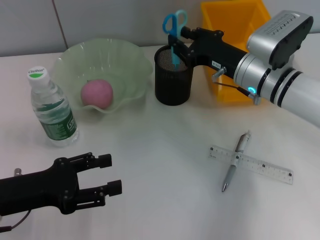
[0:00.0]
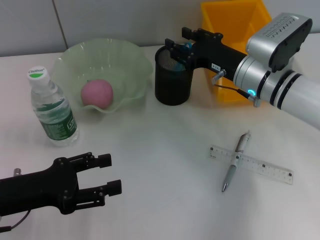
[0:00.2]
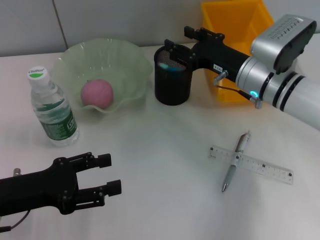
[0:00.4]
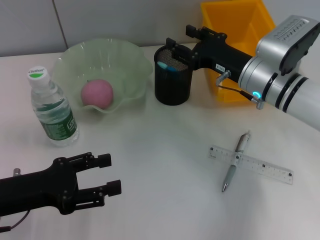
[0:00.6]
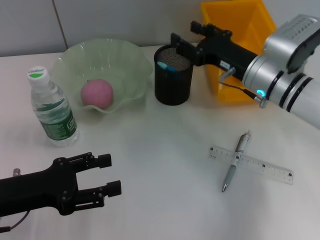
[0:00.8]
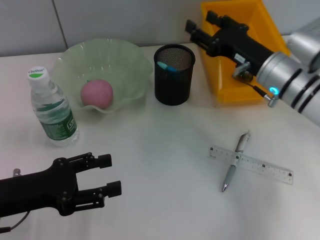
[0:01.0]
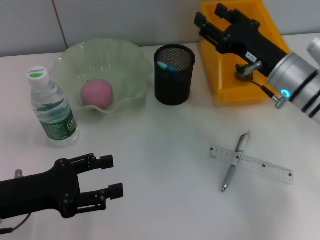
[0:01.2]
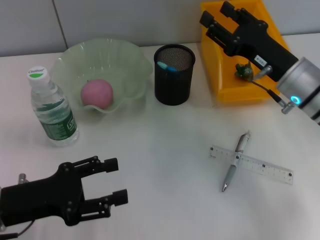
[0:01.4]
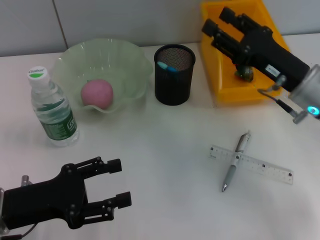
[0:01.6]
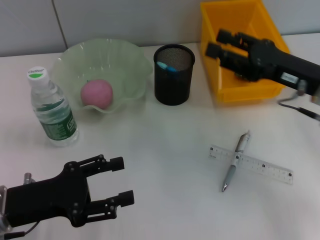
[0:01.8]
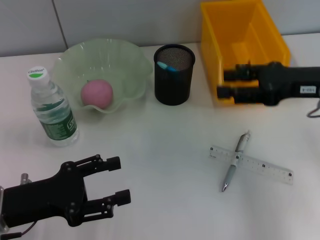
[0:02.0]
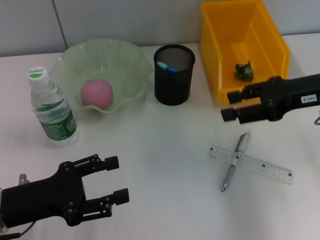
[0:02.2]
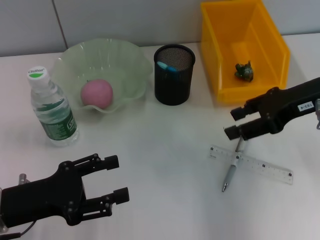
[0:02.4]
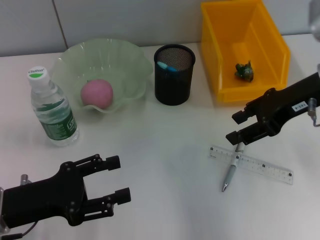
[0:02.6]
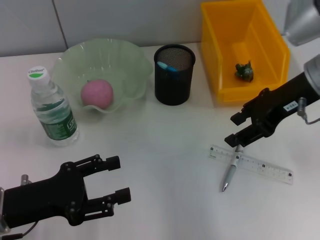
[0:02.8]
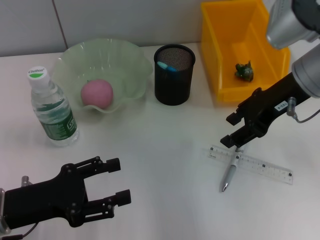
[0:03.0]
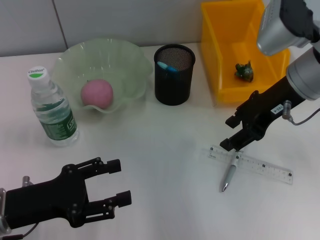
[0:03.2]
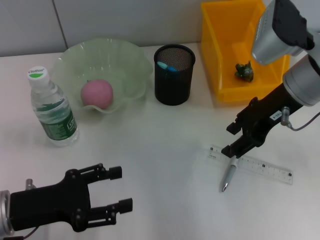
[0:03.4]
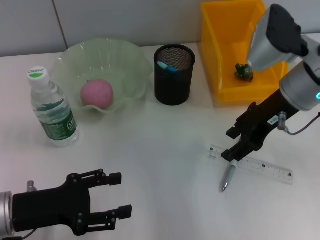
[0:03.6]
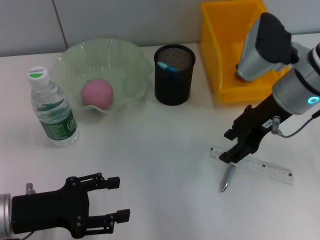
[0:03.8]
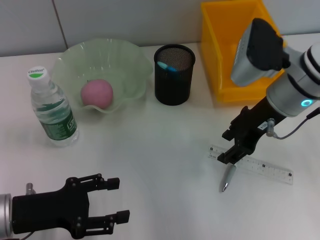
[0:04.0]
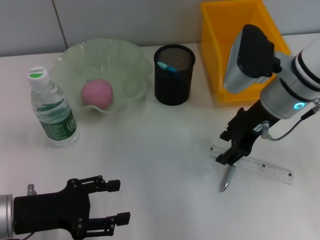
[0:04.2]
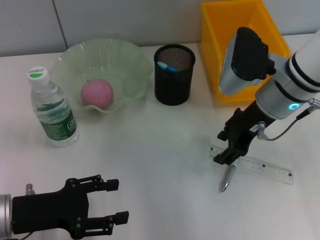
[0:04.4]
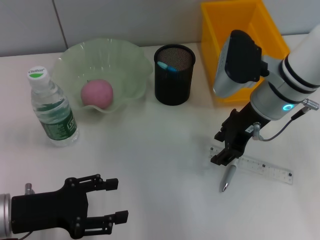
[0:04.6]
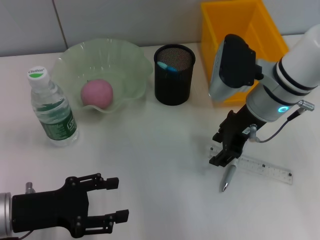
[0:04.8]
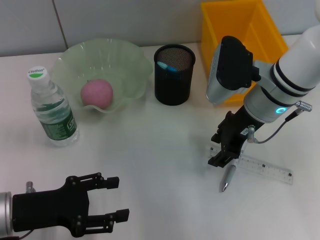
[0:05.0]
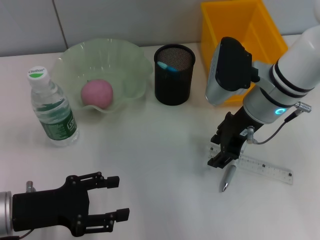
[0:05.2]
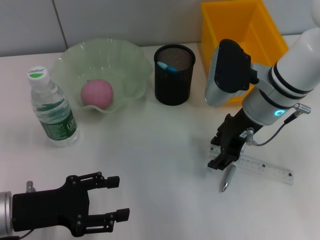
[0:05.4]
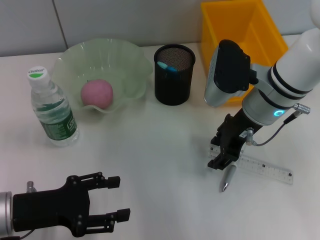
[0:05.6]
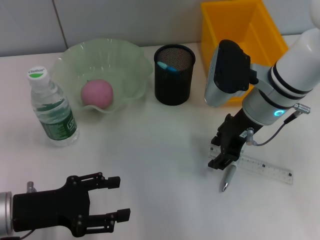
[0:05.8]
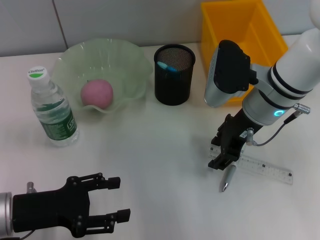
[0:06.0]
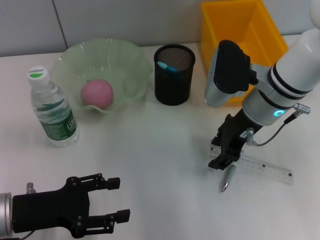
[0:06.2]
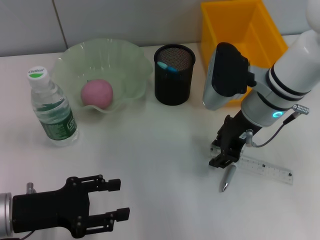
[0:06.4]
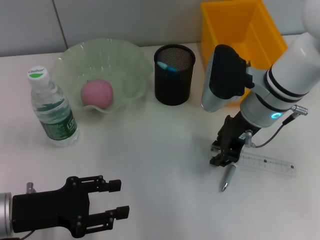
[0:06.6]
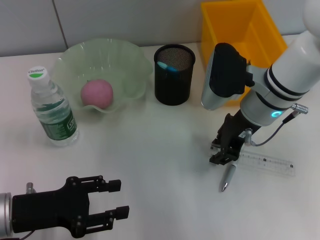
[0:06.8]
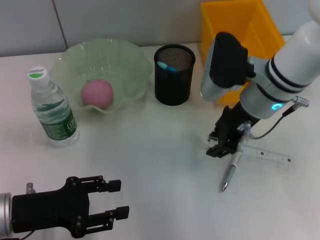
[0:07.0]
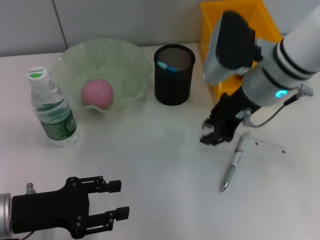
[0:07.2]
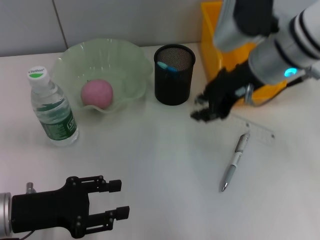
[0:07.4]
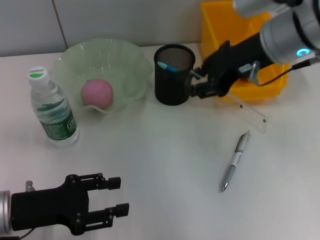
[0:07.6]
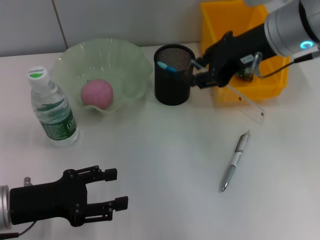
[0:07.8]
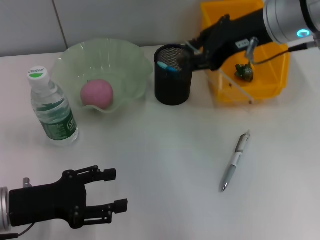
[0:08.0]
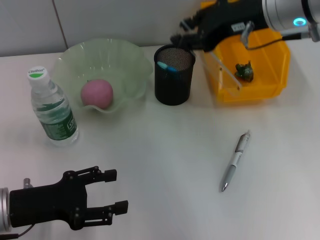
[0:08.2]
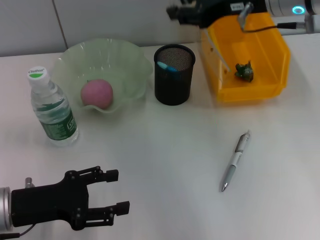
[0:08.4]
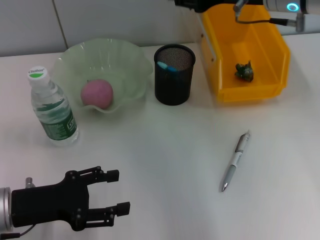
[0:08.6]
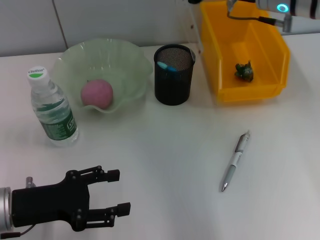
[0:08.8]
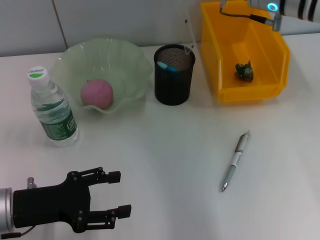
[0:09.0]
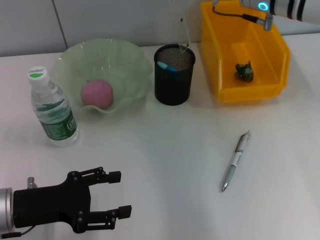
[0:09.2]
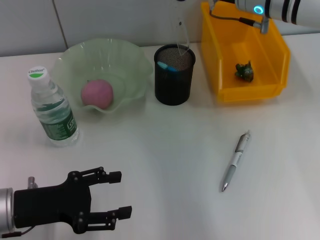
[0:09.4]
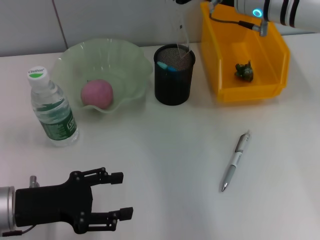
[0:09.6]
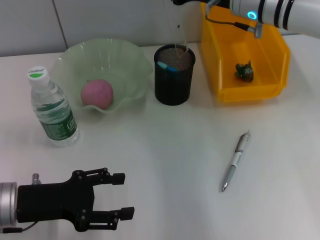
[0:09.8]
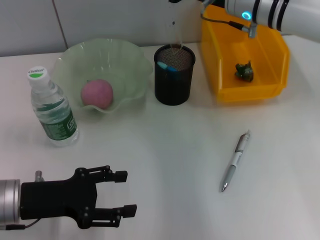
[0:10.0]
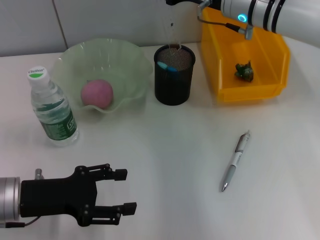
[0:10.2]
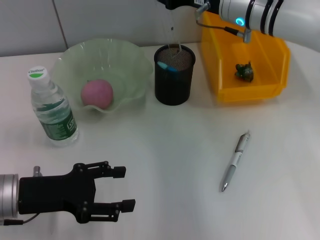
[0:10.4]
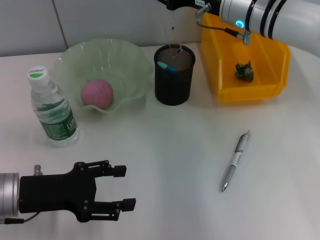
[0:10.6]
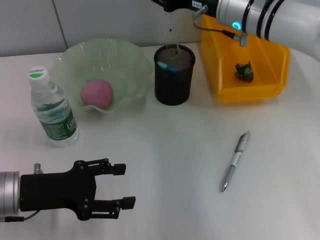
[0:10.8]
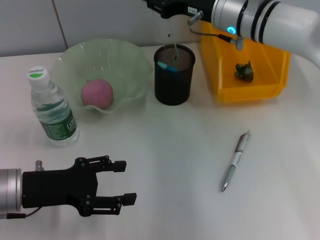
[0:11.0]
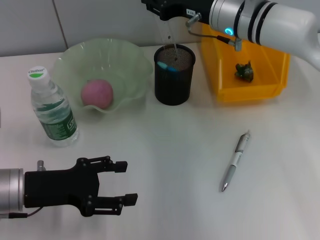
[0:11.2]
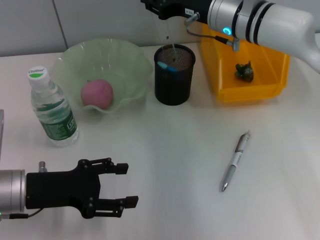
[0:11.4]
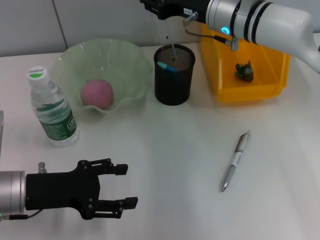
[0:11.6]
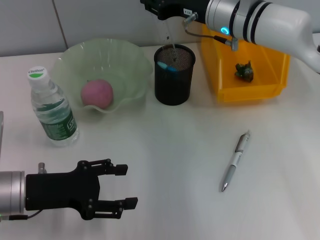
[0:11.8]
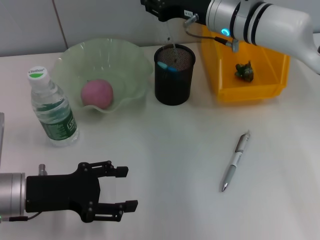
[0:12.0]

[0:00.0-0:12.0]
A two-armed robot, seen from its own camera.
Step, 0:00.6 to 0:06.4: Grab the ruler with the right hand.
0:00.0 to 0:01.6: The right gripper is displaced backward and to the right by about 10 cm, and opens up.
0:01.6 to 0:03.0: The right gripper moves upward, roughly 10 cm.
0:03.0 to 0:04.4: The right gripper heads downward, covering approximately 5 cm.
0:04.4 to 0:06.0: The grippers stay close to where they were, moving slightly.
0:06.0 to 0:07.6: The right gripper heads upward, covering some 10 cm, and closes up.
0:07.6 to 0:09.0: The left gripper opens its fingers. Meanwhile the right gripper shifts approximately 5 cm forward.
0:09.0 to 0:10.4: The right gripper changes place by approximately 5 cm.
0:10.4 to 0:12.0: The grippers stay close to where they were, moving slightly.

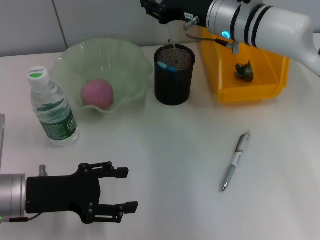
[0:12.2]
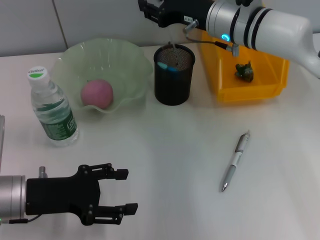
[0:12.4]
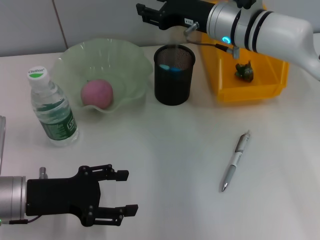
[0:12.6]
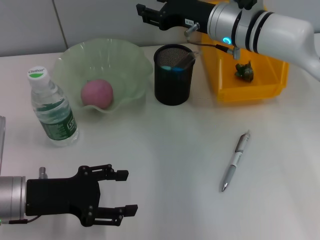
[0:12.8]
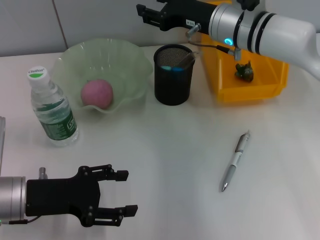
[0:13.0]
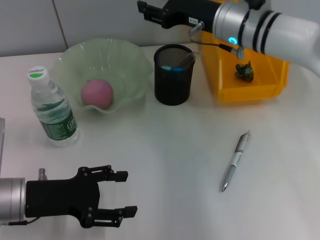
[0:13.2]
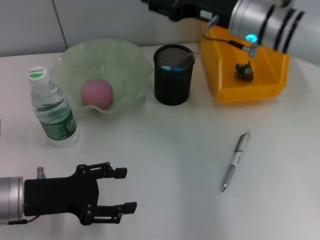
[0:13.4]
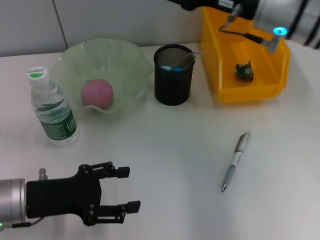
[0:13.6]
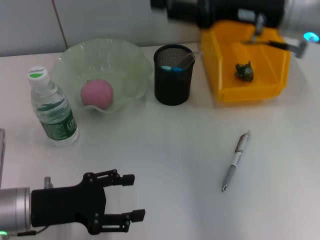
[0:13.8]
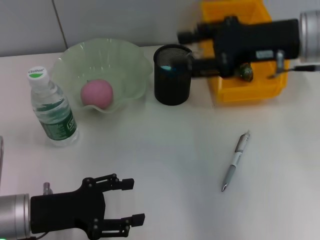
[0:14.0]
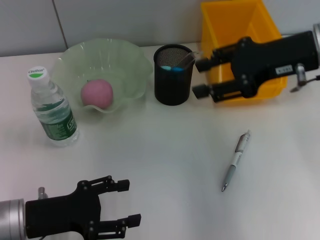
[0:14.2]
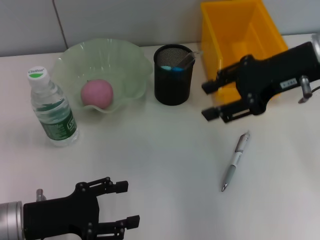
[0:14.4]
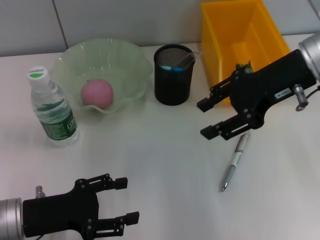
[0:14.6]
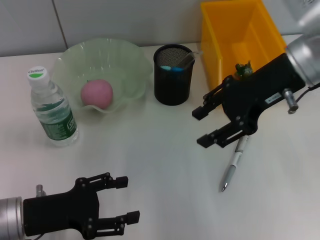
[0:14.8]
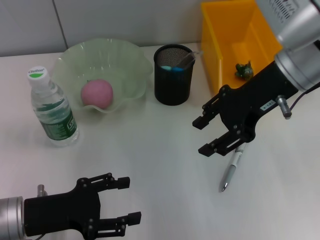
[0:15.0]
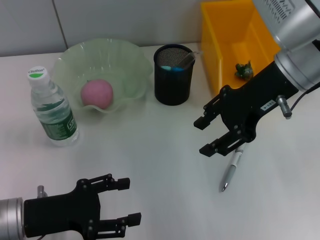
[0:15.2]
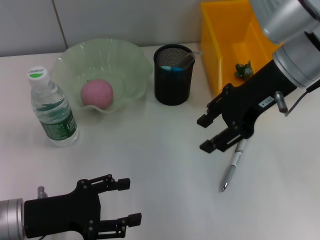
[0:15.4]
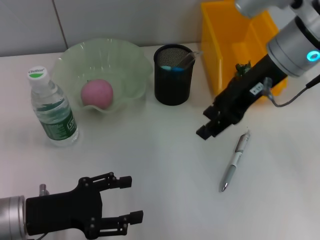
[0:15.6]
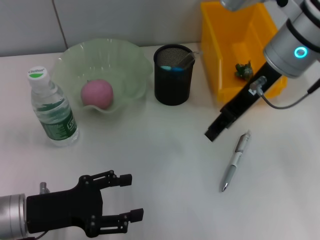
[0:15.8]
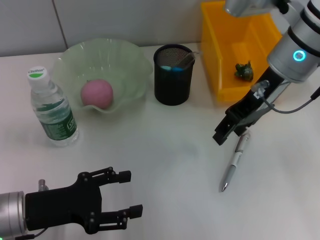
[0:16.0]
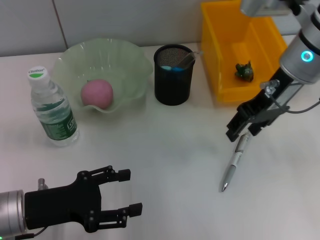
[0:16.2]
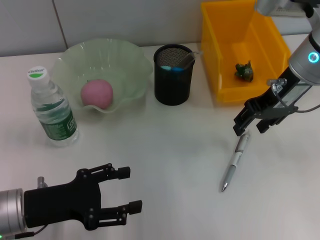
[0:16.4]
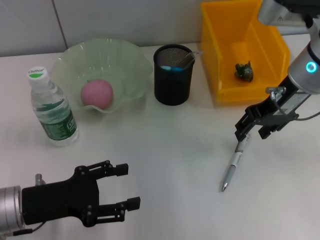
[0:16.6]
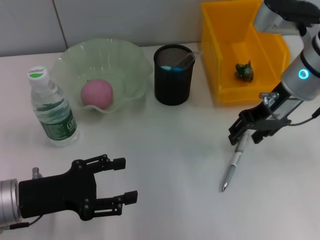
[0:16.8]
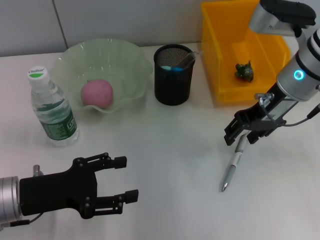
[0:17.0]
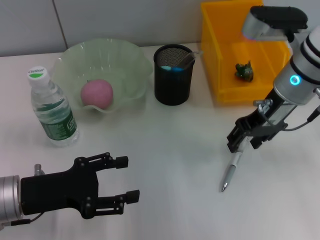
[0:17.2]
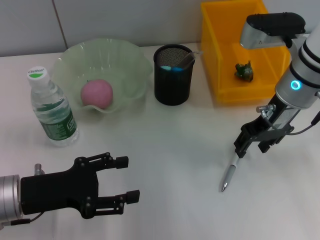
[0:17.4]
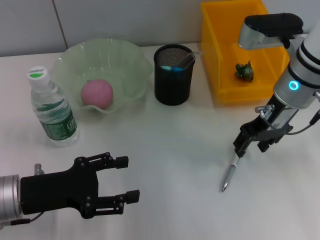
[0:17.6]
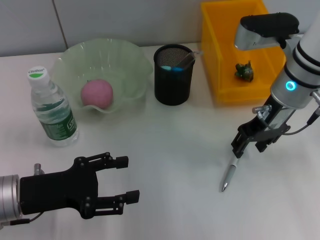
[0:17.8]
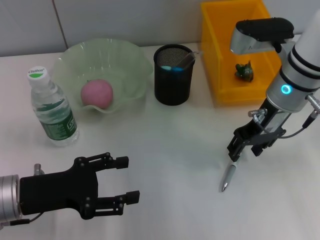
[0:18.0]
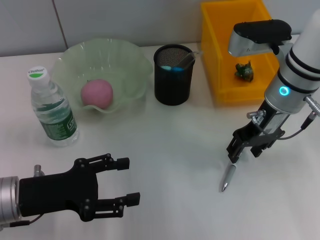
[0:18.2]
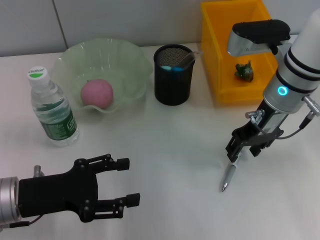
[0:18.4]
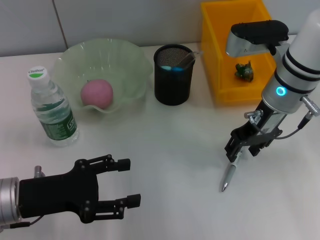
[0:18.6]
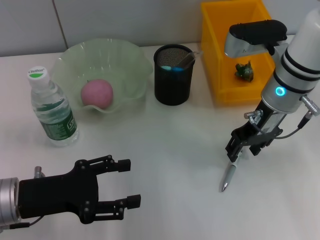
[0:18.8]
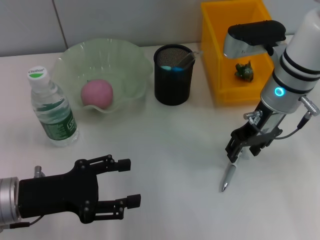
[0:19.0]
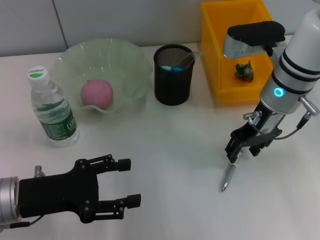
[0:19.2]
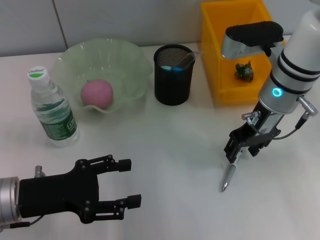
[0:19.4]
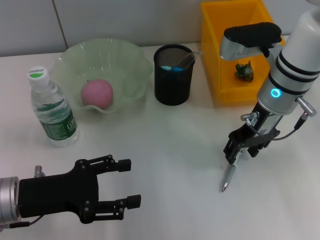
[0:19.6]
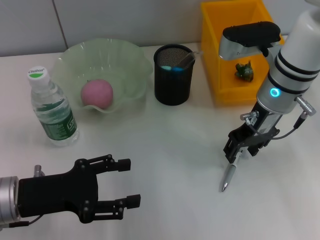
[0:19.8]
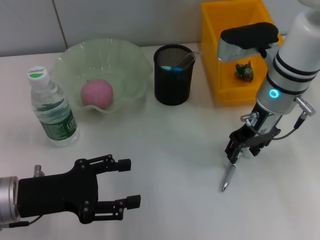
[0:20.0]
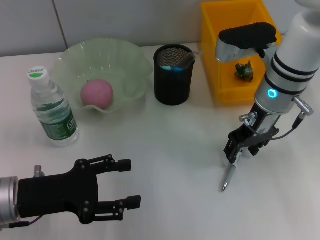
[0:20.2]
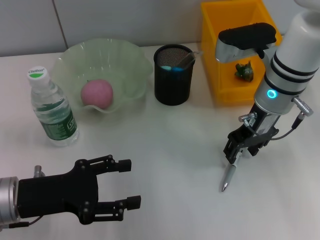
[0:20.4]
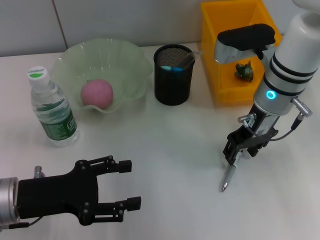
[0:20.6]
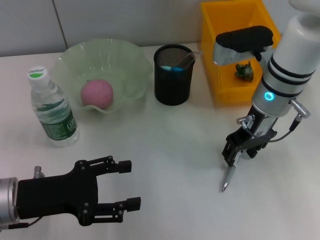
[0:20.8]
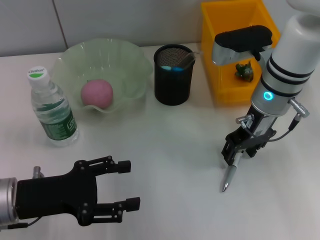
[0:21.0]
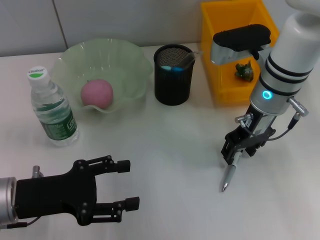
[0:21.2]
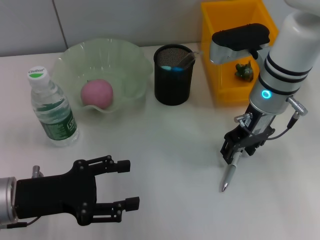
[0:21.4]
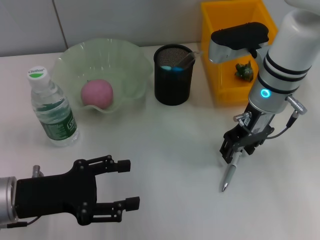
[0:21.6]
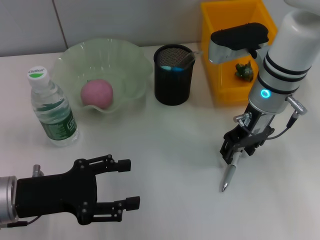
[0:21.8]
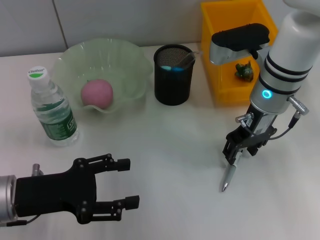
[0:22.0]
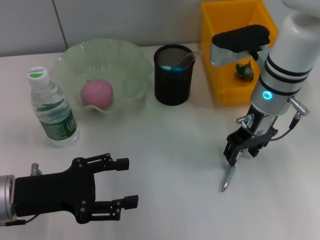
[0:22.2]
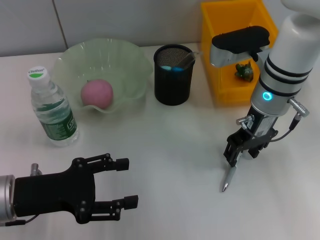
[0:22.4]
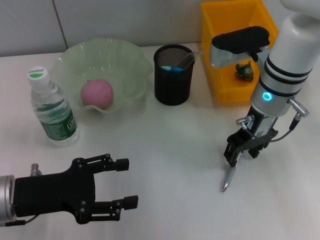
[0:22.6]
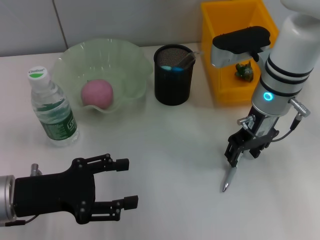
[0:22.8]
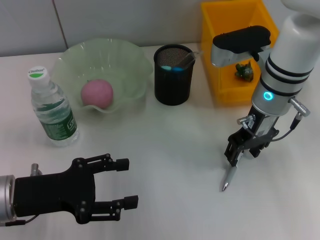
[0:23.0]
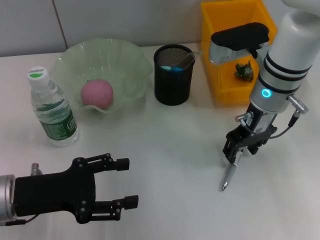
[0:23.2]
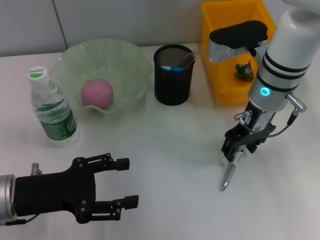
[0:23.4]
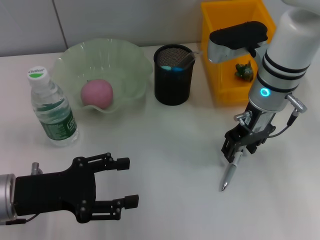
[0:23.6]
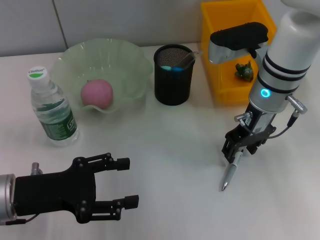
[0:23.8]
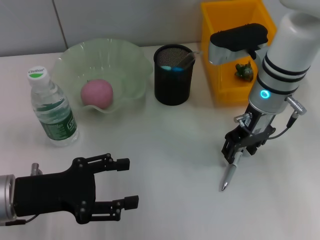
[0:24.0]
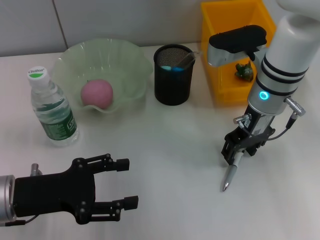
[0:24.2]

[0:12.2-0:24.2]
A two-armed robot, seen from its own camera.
0:12.2 to 0:13.8: The right gripper moves backward, upward and to the right, about 15 cm.
0:16.6 to 0:18.2: The grippers make only small movements.
0:18.2 to 0:19.8: Both grippers stay put.
0:19.8 to 0:22.6: Both grippers stay about where they are.
0:22.6 to 0:24.2: Neither gripper changes place.
